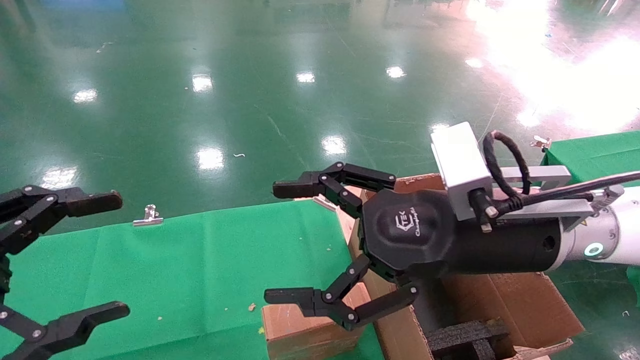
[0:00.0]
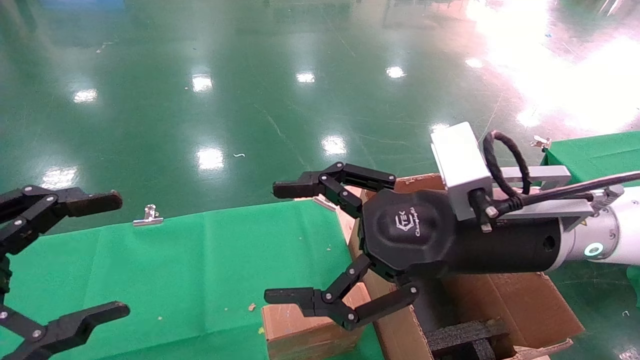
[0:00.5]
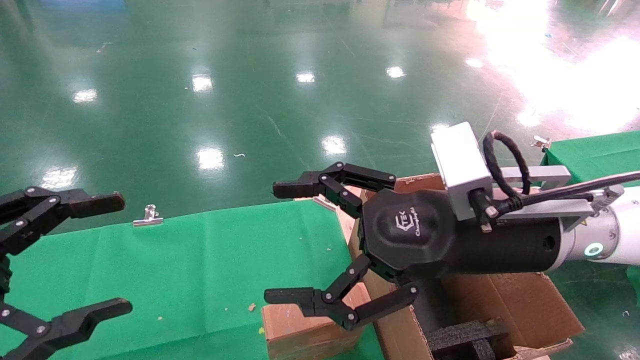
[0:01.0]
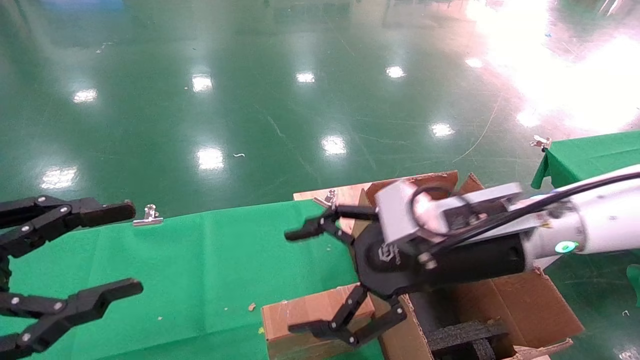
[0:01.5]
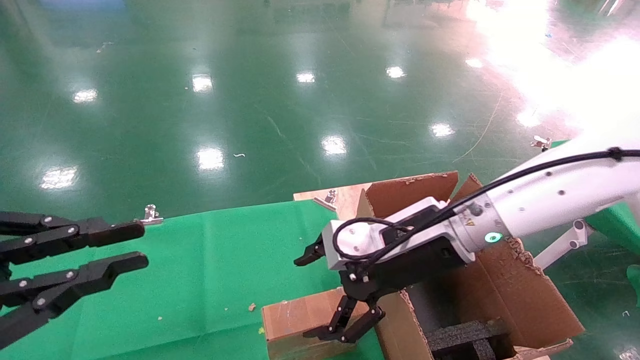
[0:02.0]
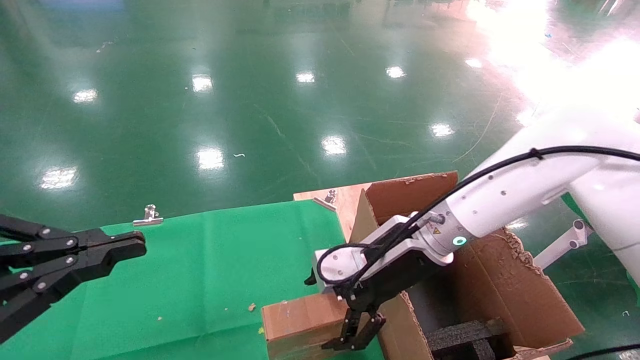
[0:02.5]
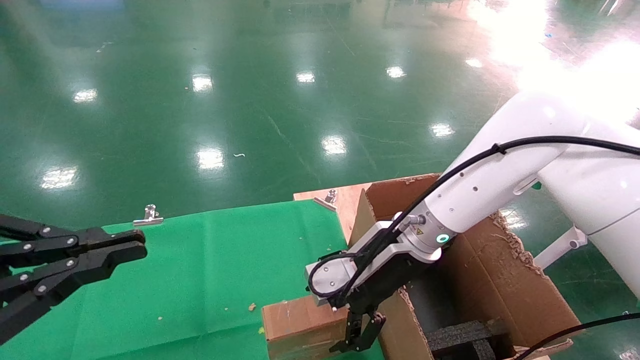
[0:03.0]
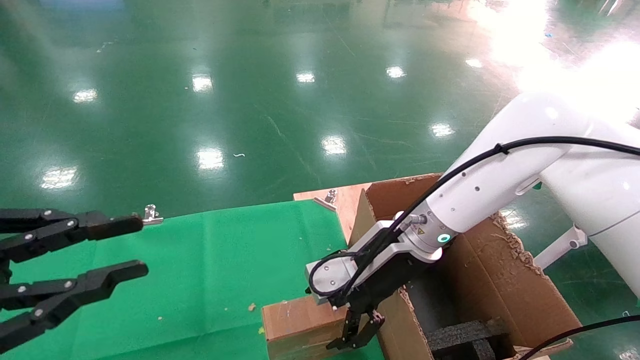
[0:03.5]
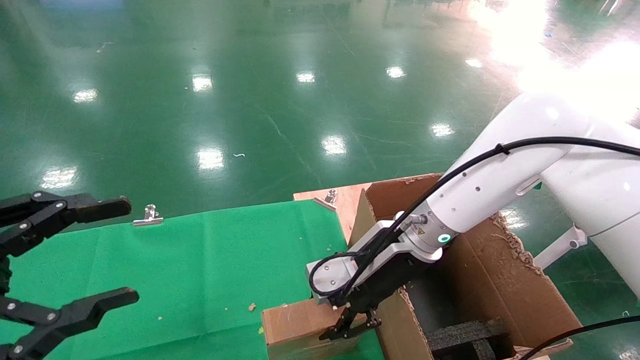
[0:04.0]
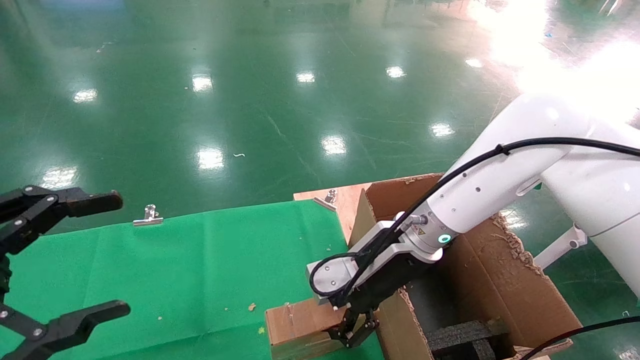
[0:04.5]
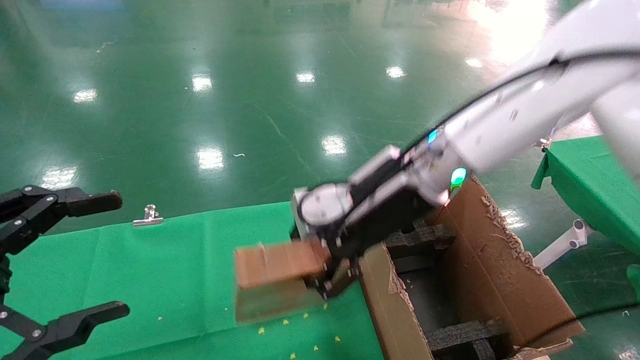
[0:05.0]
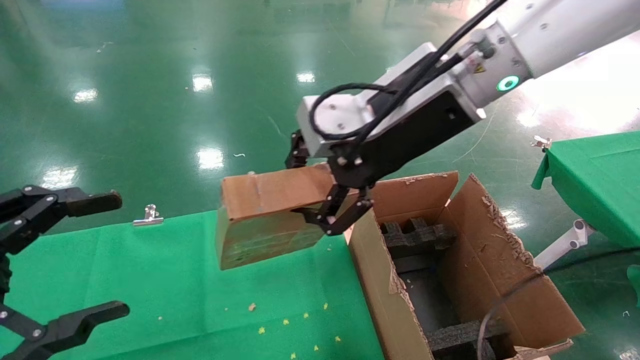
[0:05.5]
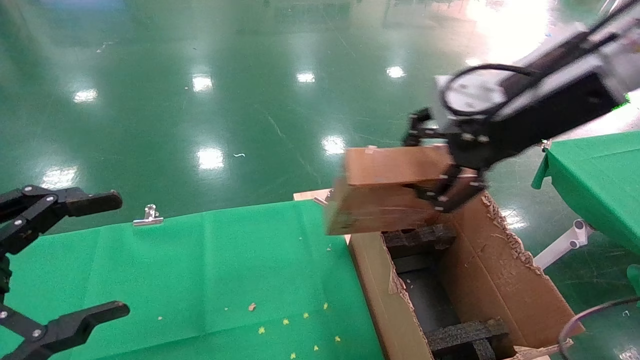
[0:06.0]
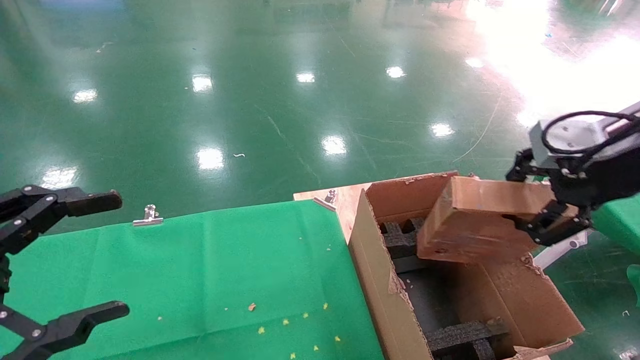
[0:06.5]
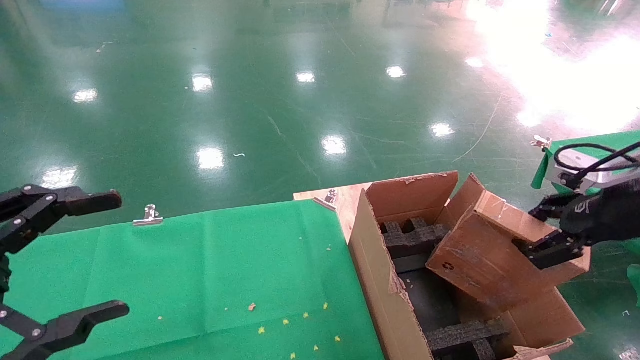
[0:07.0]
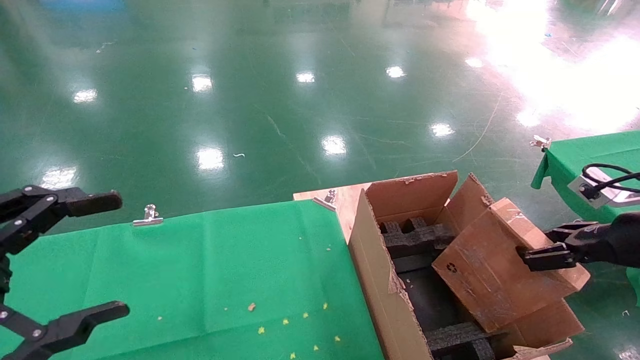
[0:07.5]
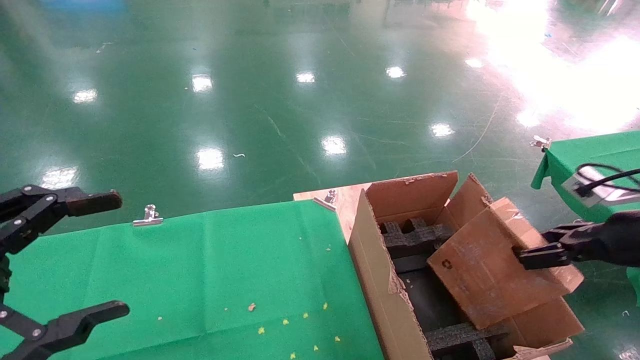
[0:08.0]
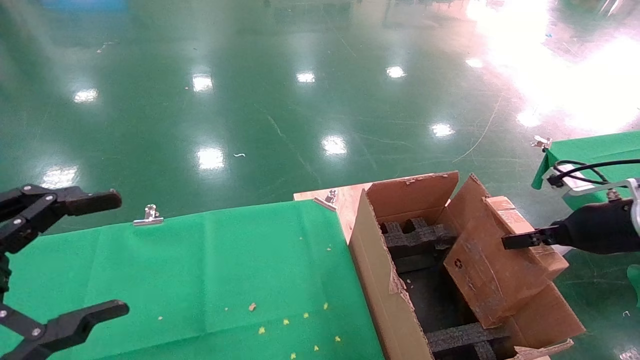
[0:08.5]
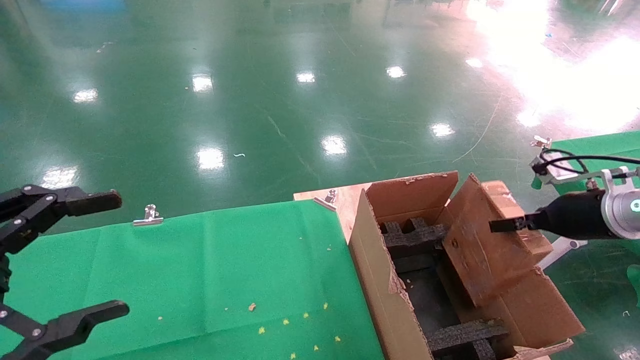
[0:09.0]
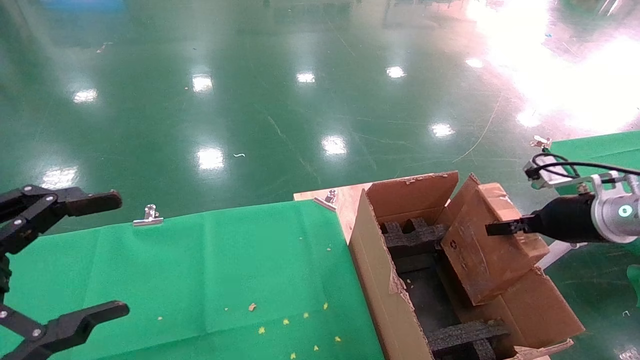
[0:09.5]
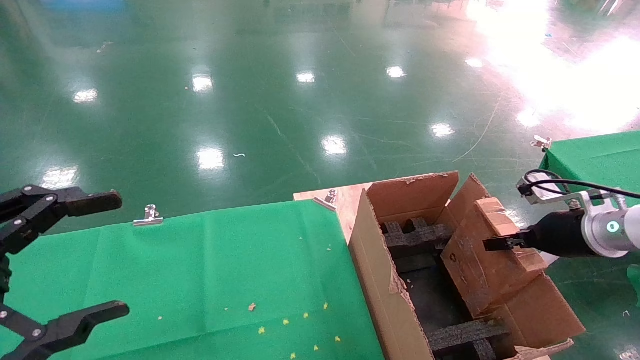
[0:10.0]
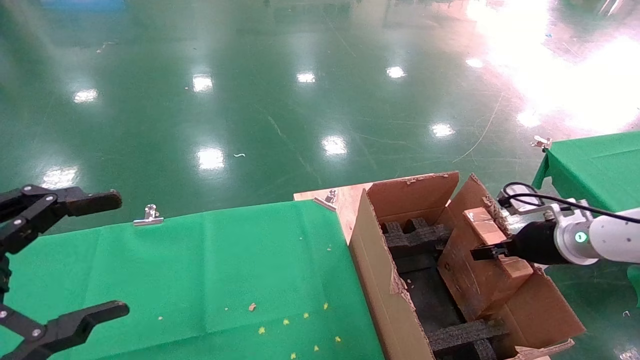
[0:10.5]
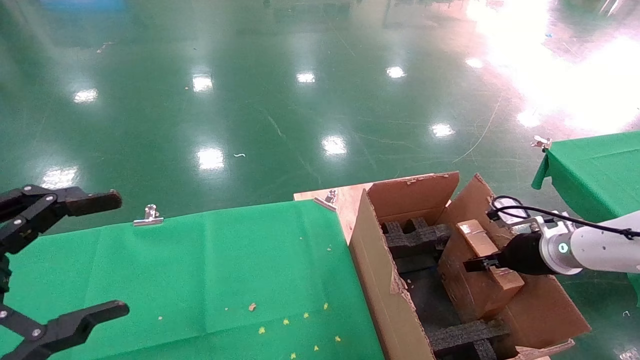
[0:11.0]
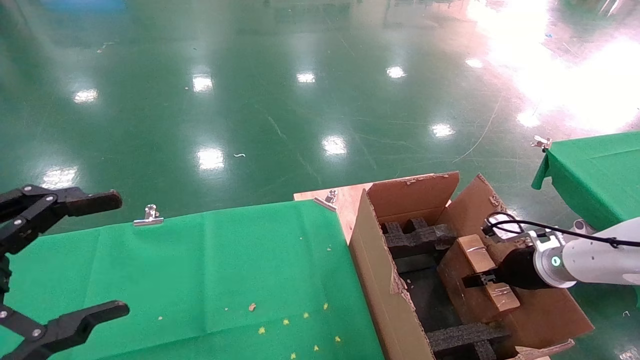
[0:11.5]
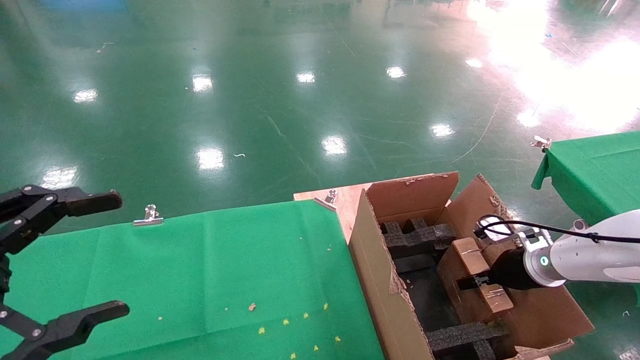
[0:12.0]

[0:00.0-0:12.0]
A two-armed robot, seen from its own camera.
Task of the whole recording: using a robotic arm to pick up a cardboard box and palace it the carton.
Step, 0:01.5 to 0:04.0: Pick up the mouse and the power cord paper box.
0:00.0 to 0:02.0: The left gripper closes. The right gripper is displaced forward by approximately 10 cm.
0:02.0 to 0:04.0: The left gripper opens. Meanwhile the right gripper closes.
0:04.0 to 0:06.0: The right gripper heads upward, to the right and backward, covering approximately 25 cm, and closes.
0:06.0 to 0:08.0: The right gripper shifts approximately 25 cm to the right and downward.
0:08.0 to 0:10.0: The right gripper travels forward by about 5 cm.
0:10.0 to 0:12.0: The right gripper travels downward by about 10 cm.

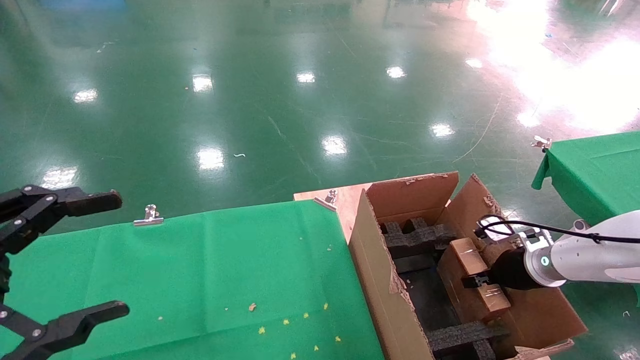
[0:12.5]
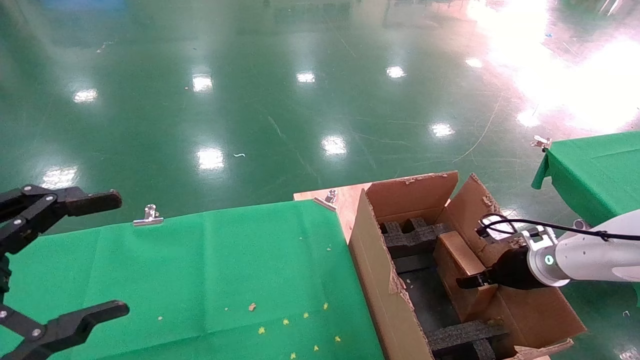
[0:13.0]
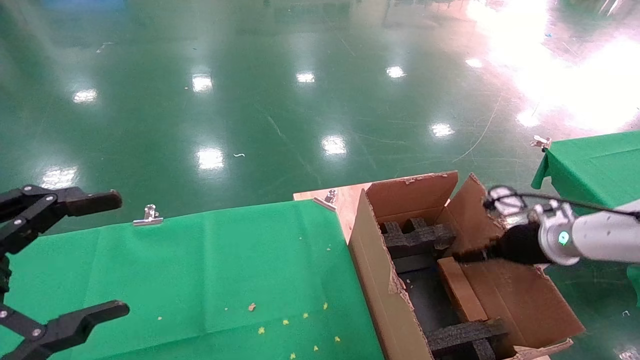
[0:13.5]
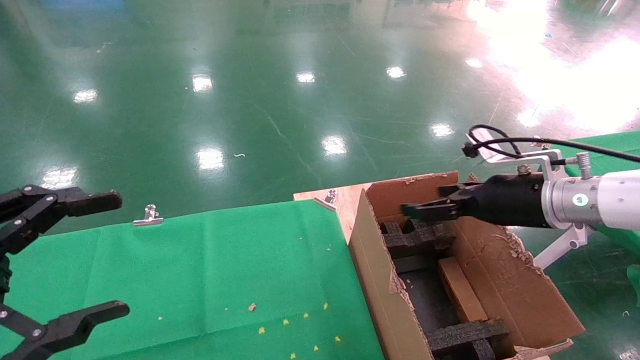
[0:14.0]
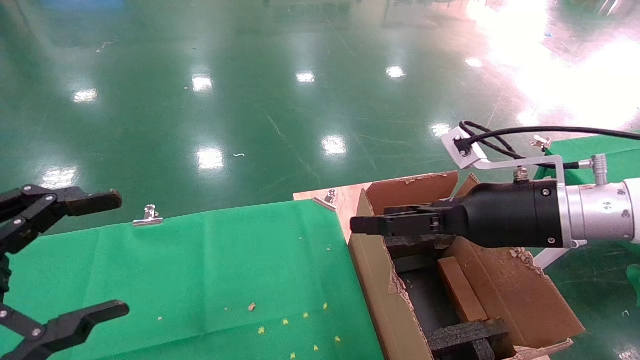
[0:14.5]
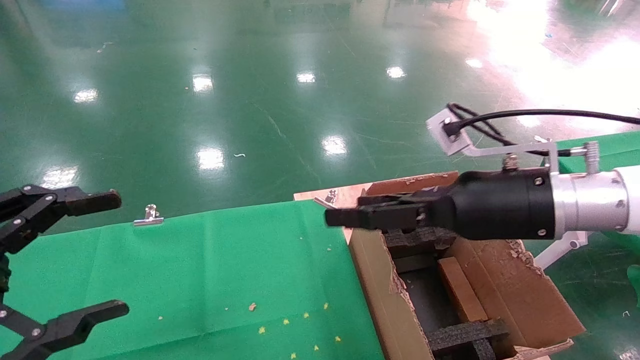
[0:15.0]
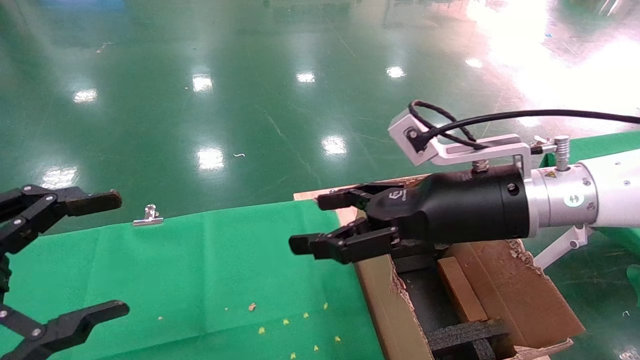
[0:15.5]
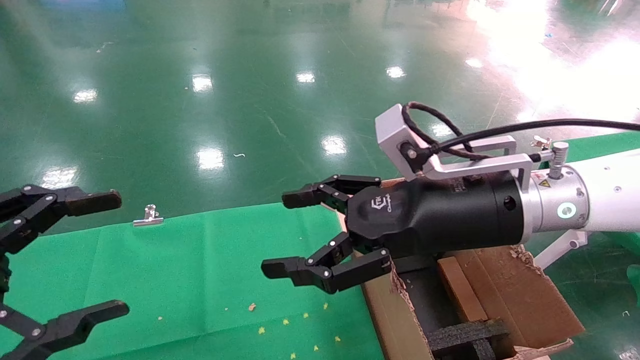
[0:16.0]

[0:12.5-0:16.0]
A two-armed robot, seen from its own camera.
Task of the whole recording: using a robotic arm to pick up a cardboard box and palace it the carton.
0:12.5 to 0:14.5: The right gripper travels upward, to the left and backward by some 25 cm, and opens its fingers.
0:14.5 to 0:16.0: The right gripper is displaced to the left by approximately 10 cm.
